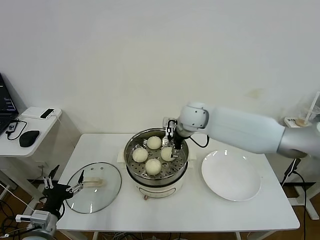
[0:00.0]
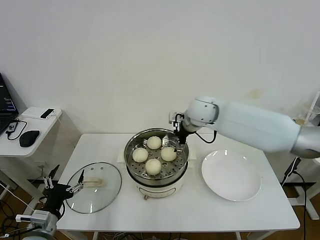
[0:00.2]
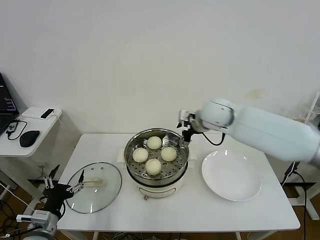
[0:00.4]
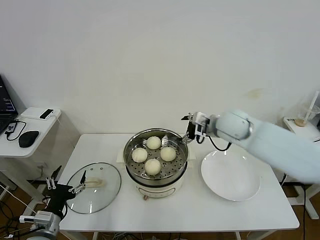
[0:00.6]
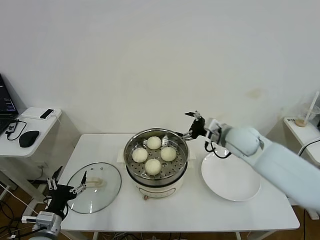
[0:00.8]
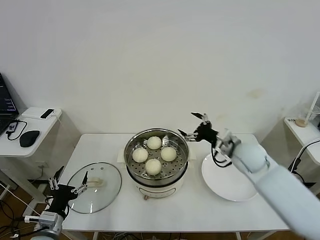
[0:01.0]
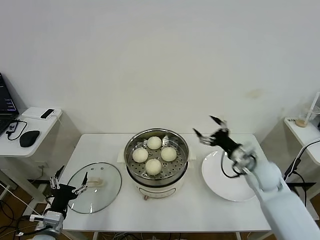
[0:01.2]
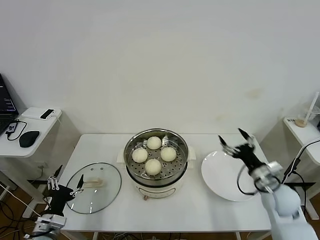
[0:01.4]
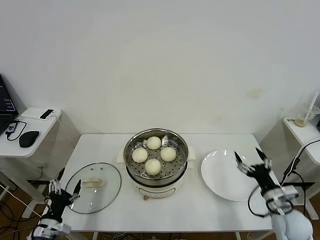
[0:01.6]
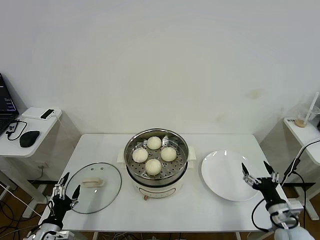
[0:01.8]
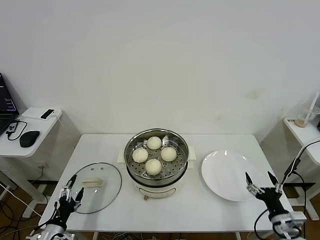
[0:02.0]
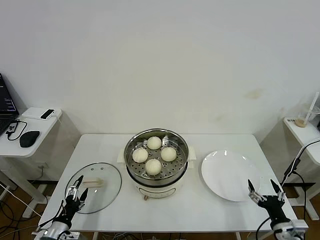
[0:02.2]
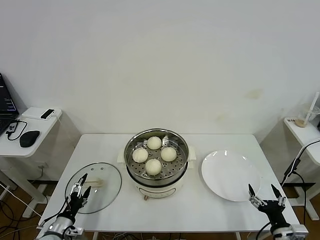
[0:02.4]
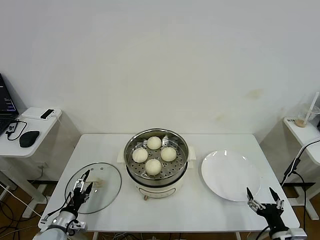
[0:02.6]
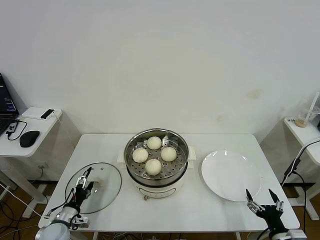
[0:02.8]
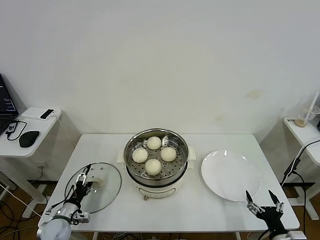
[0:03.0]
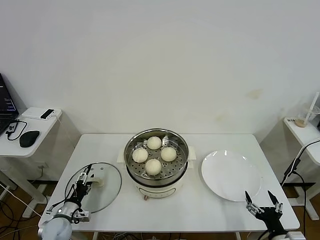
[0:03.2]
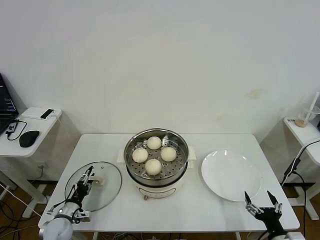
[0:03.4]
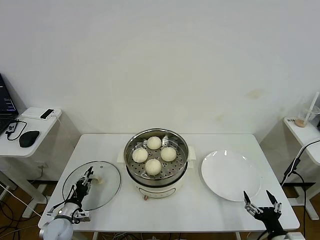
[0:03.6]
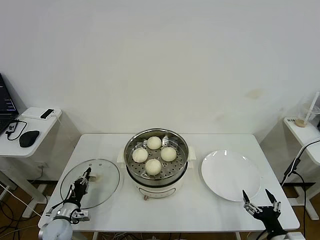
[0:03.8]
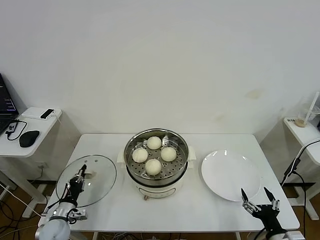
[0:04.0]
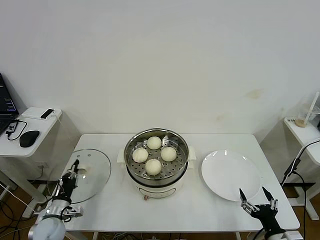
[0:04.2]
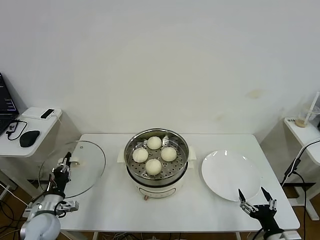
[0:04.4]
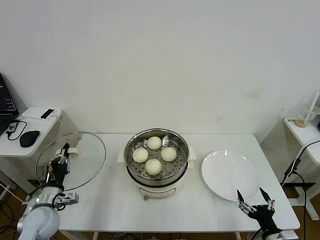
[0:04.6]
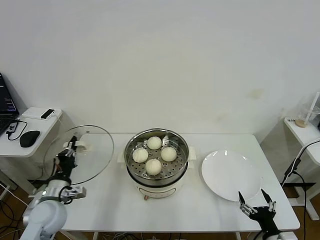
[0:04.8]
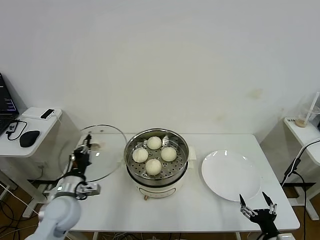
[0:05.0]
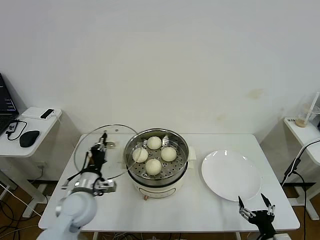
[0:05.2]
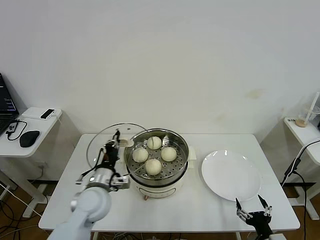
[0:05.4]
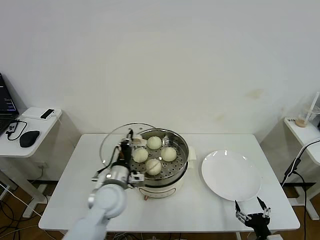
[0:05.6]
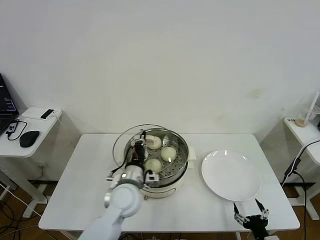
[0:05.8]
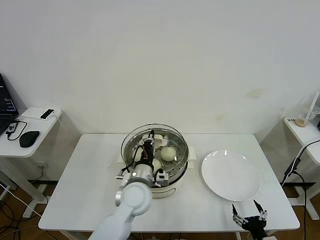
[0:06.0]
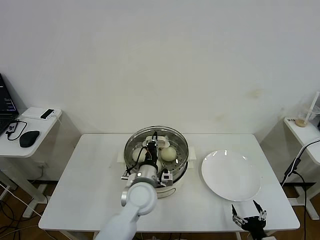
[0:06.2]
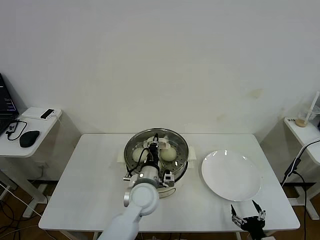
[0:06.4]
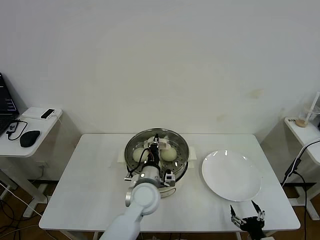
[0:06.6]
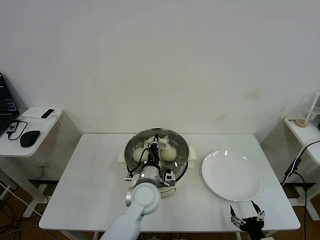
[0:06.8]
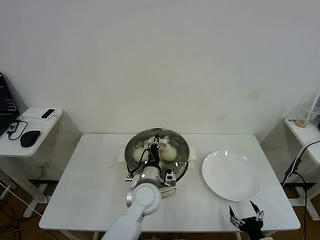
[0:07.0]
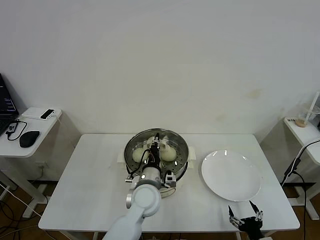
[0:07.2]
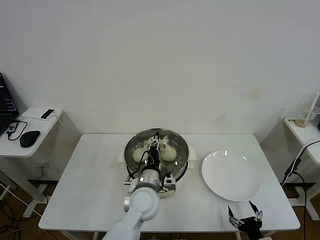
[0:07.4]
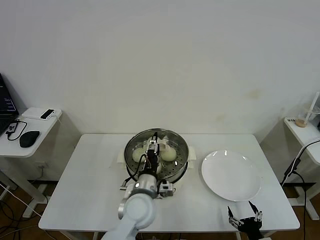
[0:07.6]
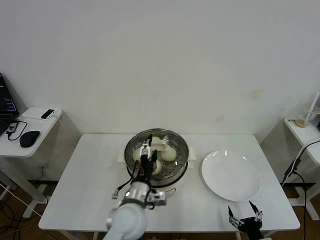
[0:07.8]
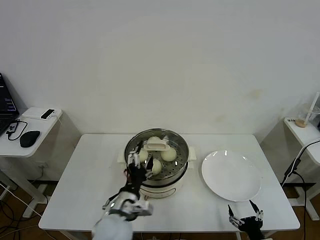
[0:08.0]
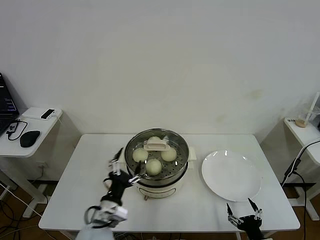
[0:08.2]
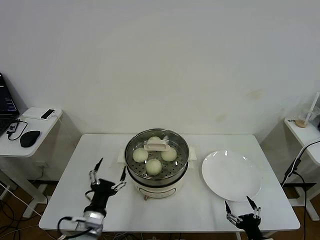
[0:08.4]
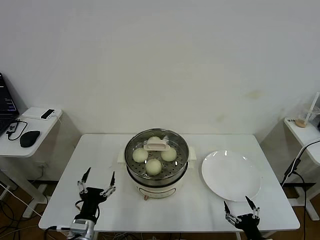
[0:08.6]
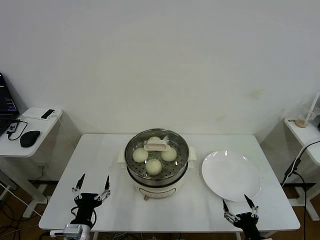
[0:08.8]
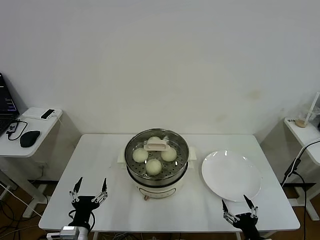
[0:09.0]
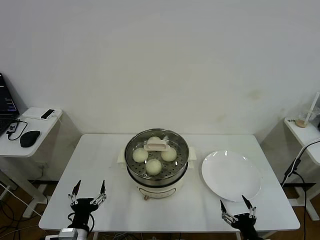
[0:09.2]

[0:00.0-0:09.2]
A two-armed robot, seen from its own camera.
Task of the whole recording: take steamed baozi put them in steamer then cover it.
Step, 0.4 to 4.0 s: Grasp the pot lid with left gripper.
Step, 4.2 to 7.8 s: Place the pot lid on the steamer with left gripper.
0.0 to 1.6 s: The right gripper shifts about 40 cm to the right, backward and downward; the left gripper shifts some 5 cm downward.
1.6 to 3.0 s: The left gripper shifts about 10 cm downward and forward; the right gripper shifts approximately 15 cm backward and downward.
3.0 to 4.6 s: The left gripper goes about 10 cm upward, and closes its fingers.
4.6 to 6.2 s: The left gripper heads to the right, covering some 30 cm; the right gripper changes place by roughly 5 cm.
6.2 to 7.6 s: The left gripper opens up.
7.6 to 9.2 s: The left gripper heads to the left and backward, covering about 25 cm, and opens.

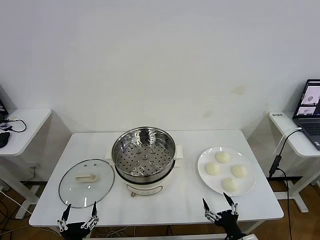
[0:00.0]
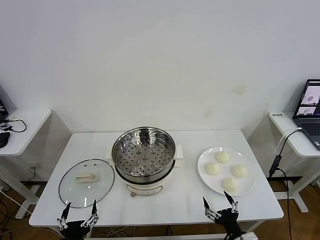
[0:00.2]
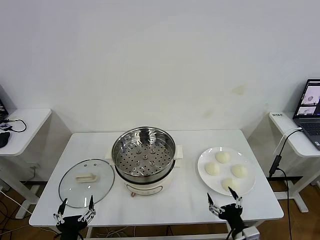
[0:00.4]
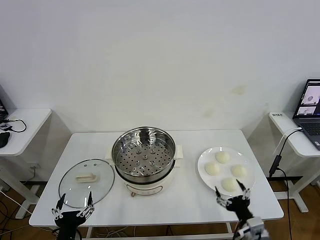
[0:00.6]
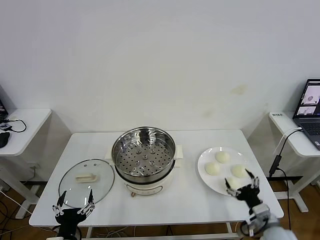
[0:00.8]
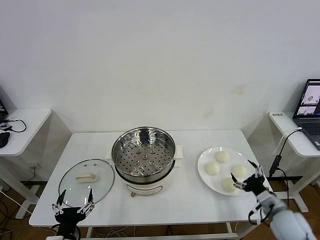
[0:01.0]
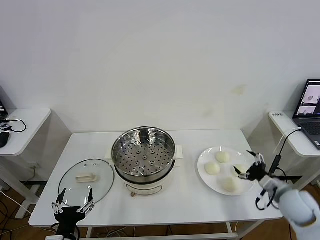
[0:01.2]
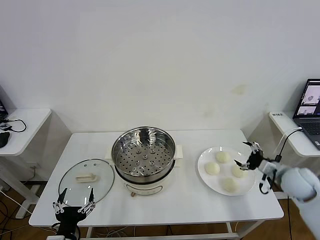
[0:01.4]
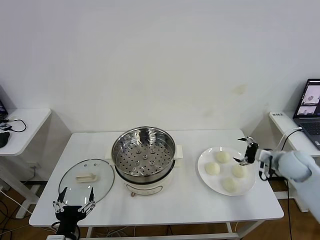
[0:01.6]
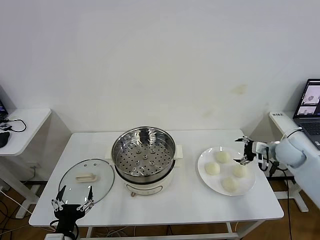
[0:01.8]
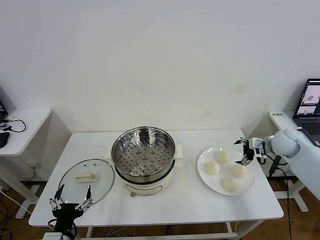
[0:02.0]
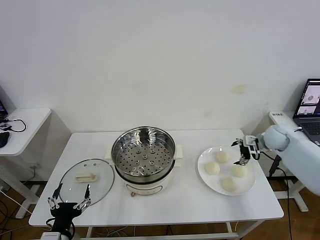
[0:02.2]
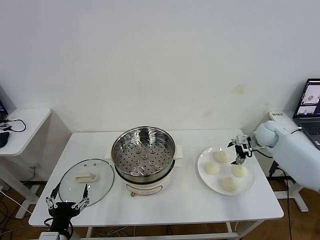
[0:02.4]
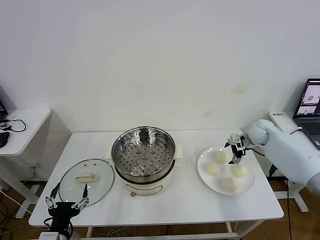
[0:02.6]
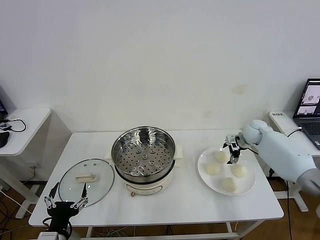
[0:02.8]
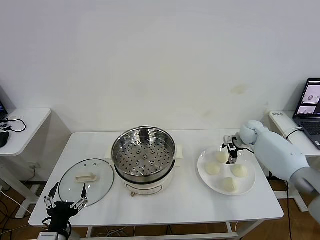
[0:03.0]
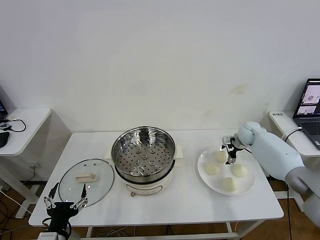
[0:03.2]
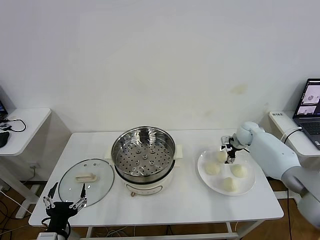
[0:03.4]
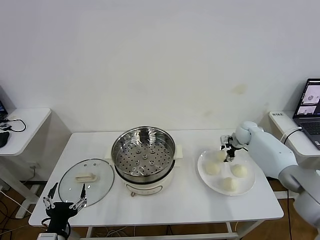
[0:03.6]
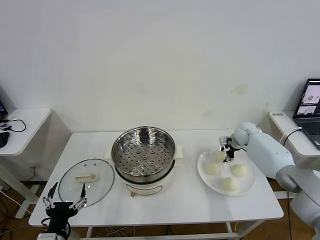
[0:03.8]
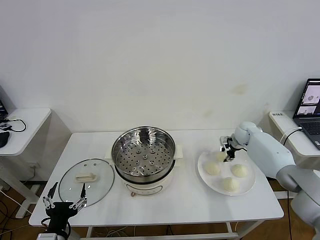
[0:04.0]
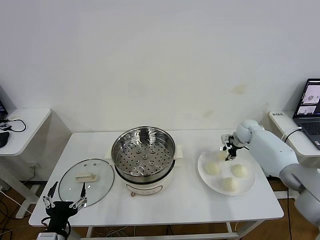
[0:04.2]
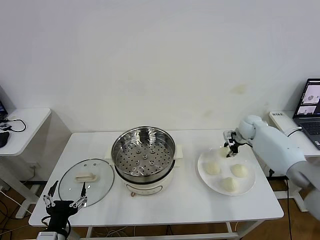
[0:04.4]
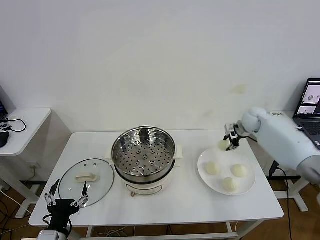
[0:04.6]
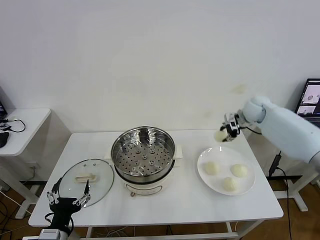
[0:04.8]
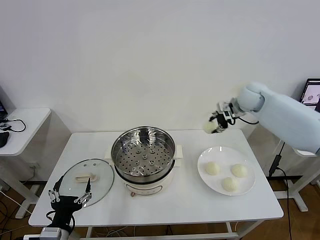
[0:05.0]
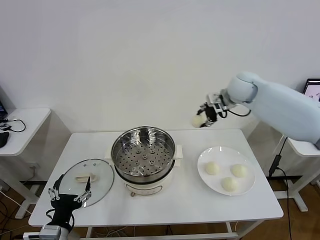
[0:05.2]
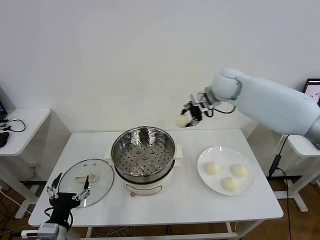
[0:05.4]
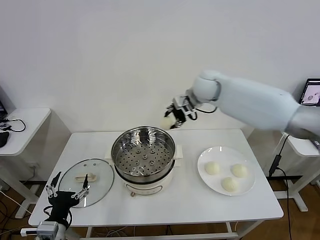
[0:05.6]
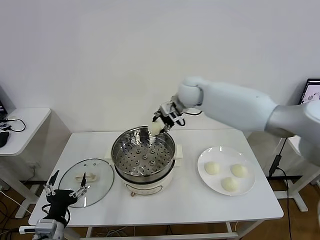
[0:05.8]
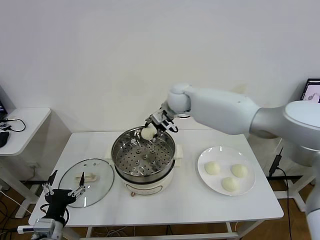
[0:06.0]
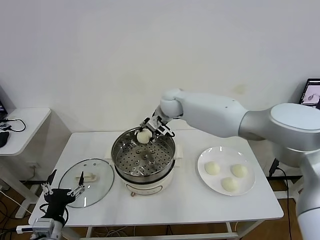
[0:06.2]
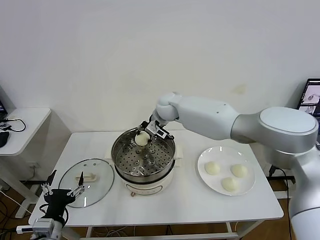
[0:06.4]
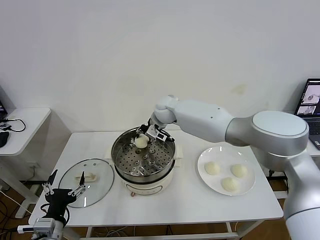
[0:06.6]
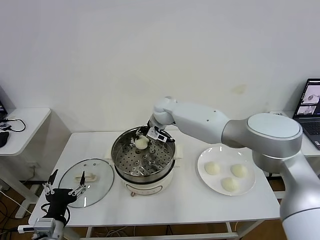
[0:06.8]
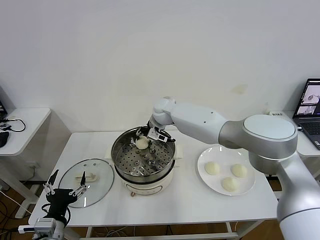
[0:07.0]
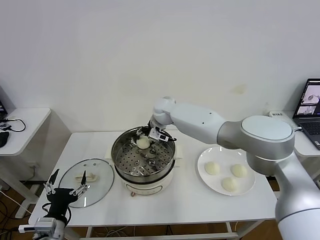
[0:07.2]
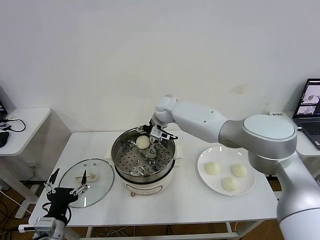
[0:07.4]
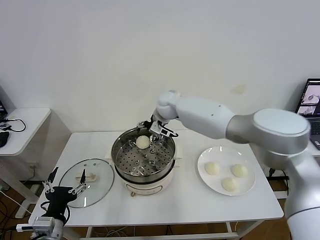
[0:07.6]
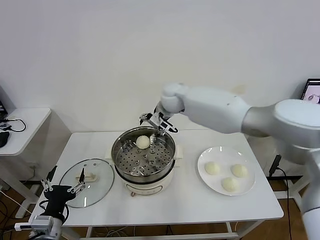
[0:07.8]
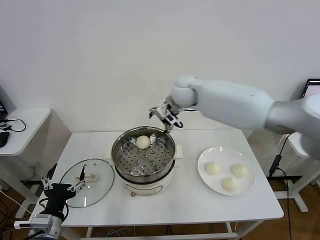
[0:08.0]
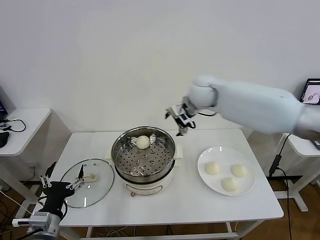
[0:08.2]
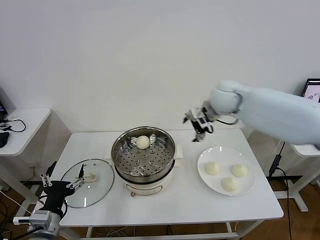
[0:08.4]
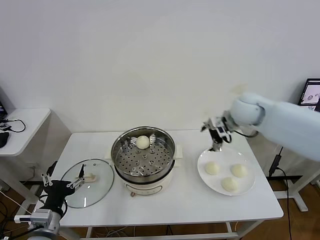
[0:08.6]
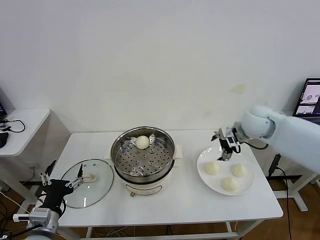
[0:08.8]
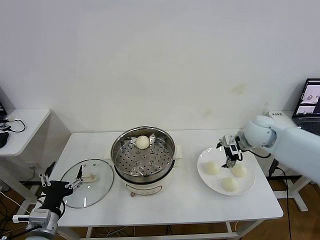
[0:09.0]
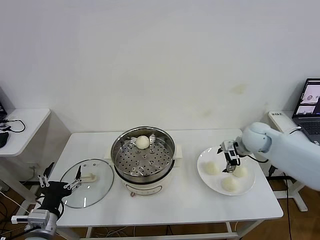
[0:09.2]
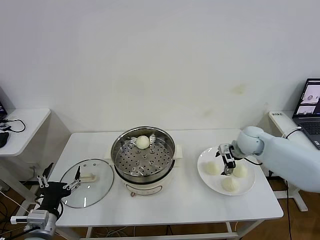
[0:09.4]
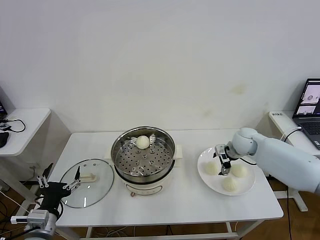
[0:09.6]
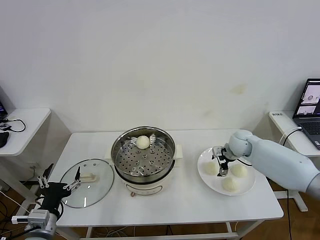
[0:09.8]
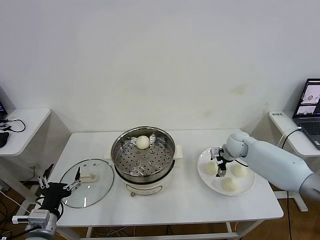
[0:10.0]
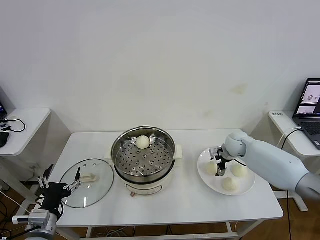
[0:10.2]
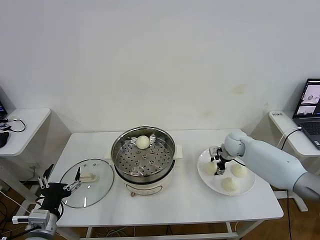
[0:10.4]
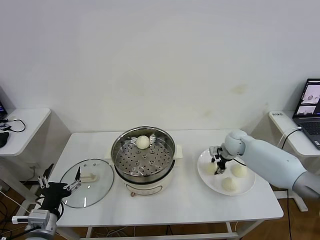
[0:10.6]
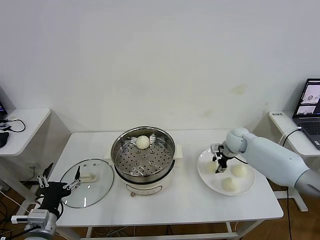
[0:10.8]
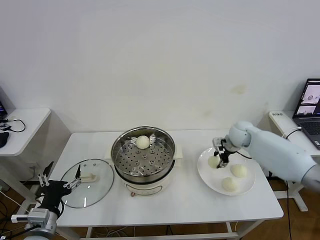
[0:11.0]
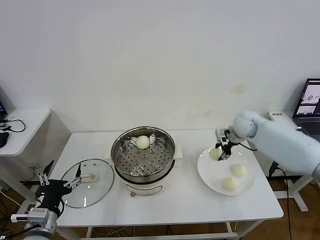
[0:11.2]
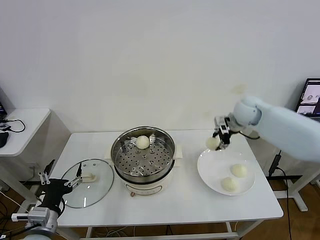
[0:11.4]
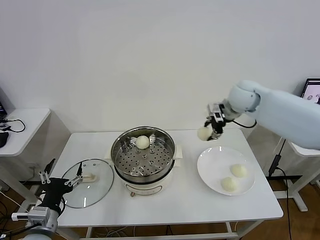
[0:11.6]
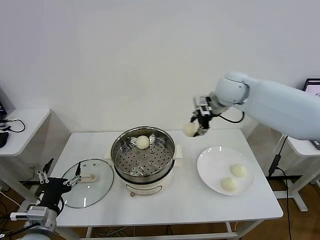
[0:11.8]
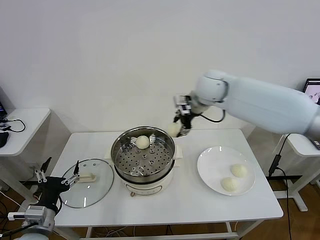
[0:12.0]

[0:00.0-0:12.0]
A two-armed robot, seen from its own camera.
Task of the whole recording: take steamed baozi put them in steamer then cover it.
Step, 0.0 to 4.0 s: Grasp the baozi in the plate with right gripper.
Step, 4.2 to 7.6 s: Place the baozi on the steamer with right gripper.
Step, 7.8 to 10.6 s: Grasp the baozi in the plate with right gripper.
1.6 to 3.0 s: The right gripper goes roughly 20 cm forward.
3.0 to 4.4 s: The right gripper closes up.
4.4 to 6.0 s: The right gripper is displaced to the left and upward by about 35 cm.
6.0 to 7.6 s: The right gripper shifts by roughly 5 cm, and opens up.
7.6 to 9.0 s: The right gripper goes some 30 cm to the right and backward.
9.0 to 10.4 s: The right gripper heads downward and forward, covering about 15 cm.
10.4 to 12.0 s: The right gripper moves upward and to the left, about 30 cm.

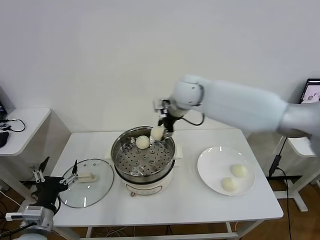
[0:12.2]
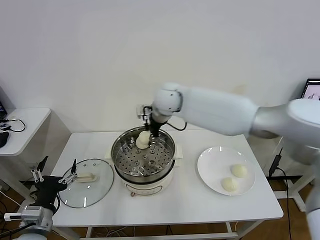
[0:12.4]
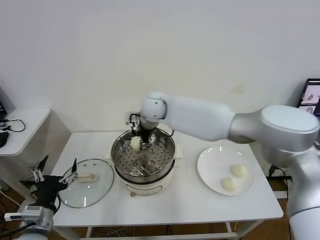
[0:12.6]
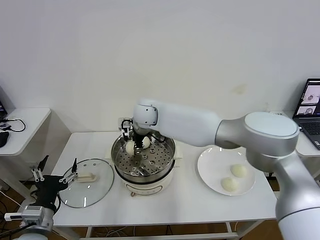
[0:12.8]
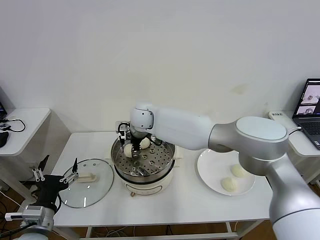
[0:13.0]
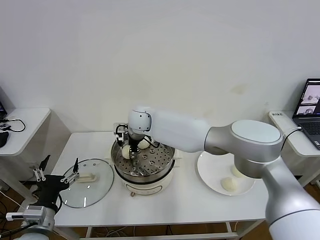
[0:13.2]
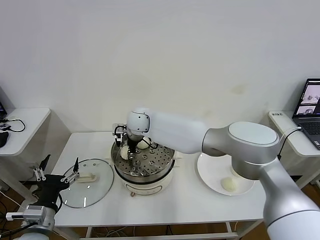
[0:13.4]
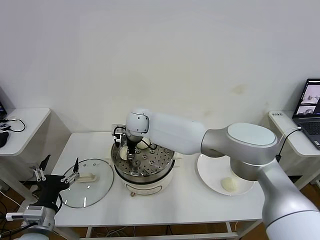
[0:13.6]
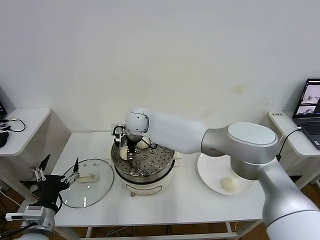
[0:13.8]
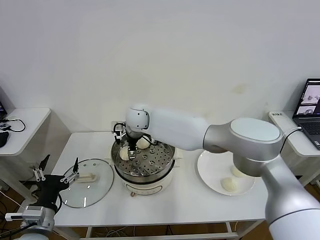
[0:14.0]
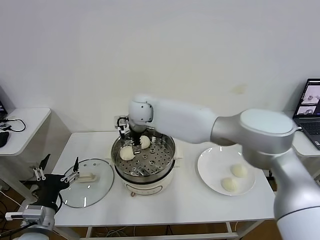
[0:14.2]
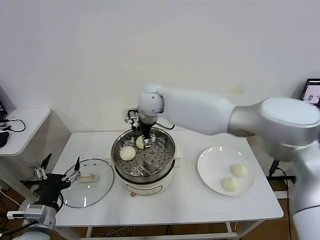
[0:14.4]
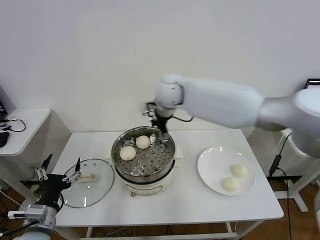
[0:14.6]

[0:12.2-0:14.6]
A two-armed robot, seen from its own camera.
Task of the whole recording: take steamed baozi put them in steamer then cover it.
Step, 12.2 to 14.0 s: Place the baozi on the steamer with right gripper.
12.2 to 13.4 s: The right gripper moves to the left and downward, approximately 20 cm.
13.4 to 14.6 s: The right gripper shifts roughly 15 cm upward and to the right, and opens up.
